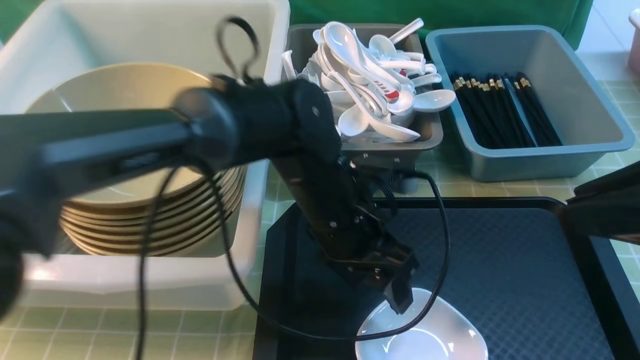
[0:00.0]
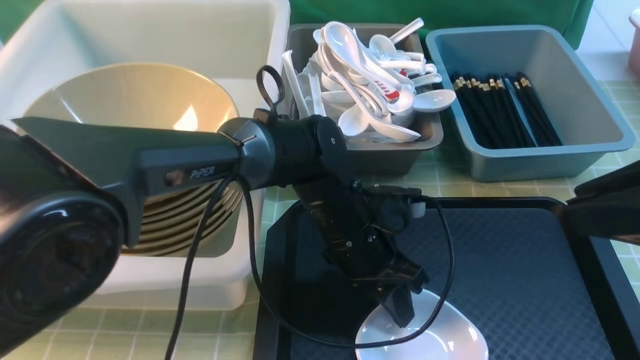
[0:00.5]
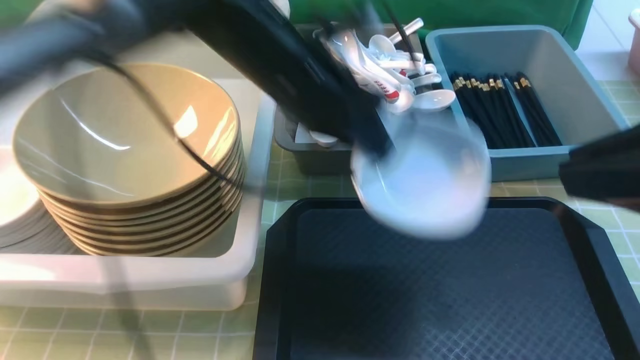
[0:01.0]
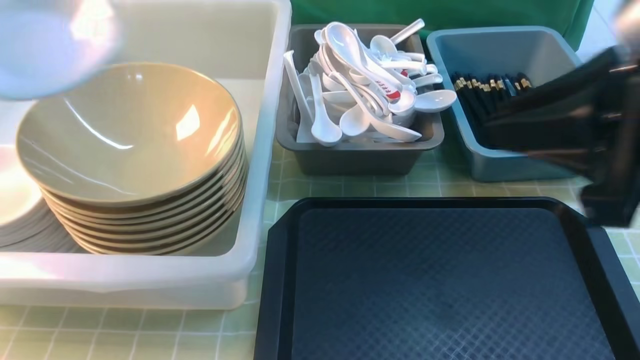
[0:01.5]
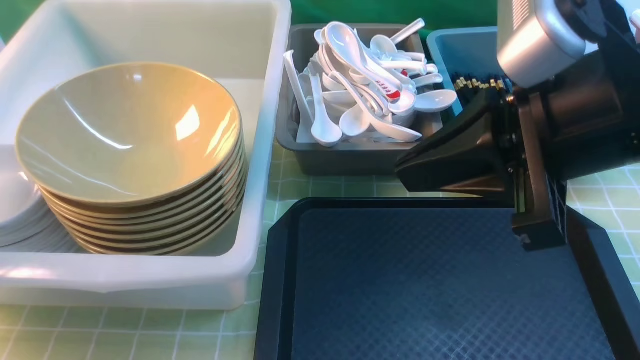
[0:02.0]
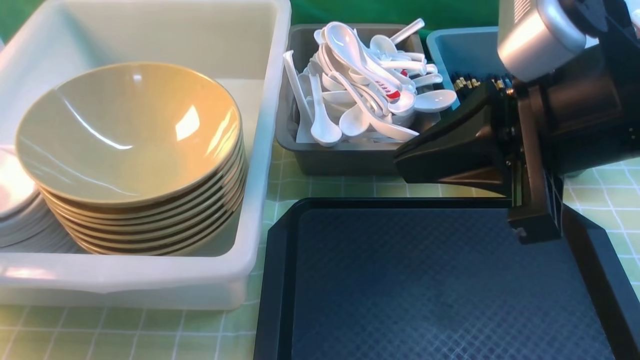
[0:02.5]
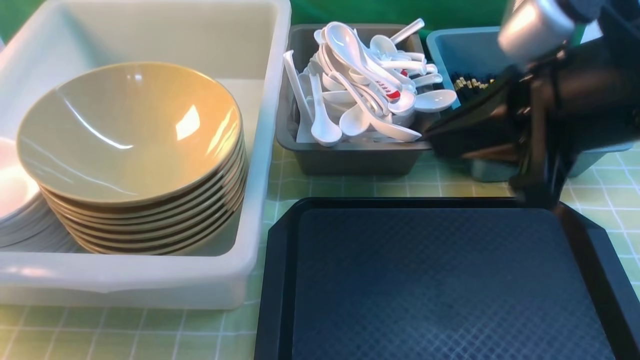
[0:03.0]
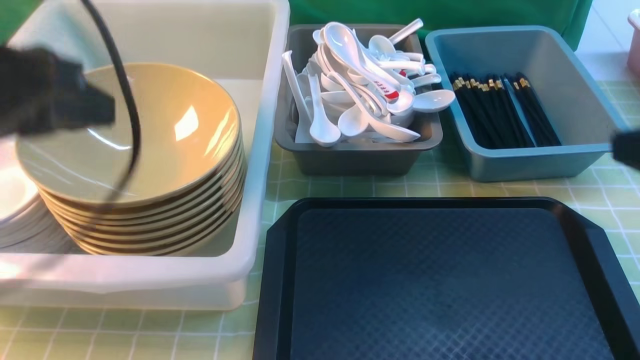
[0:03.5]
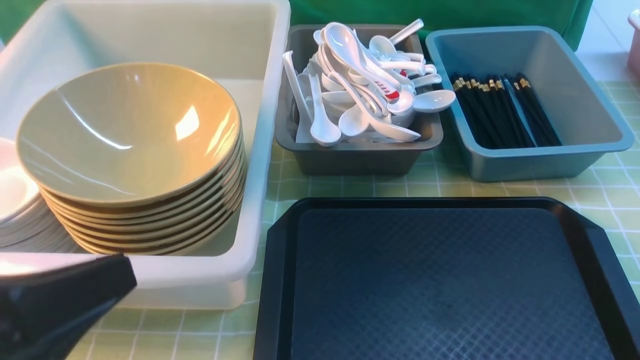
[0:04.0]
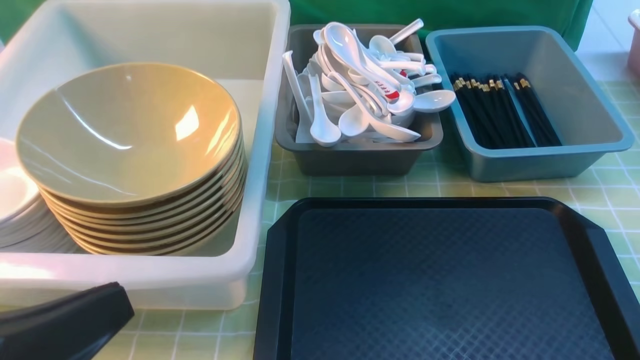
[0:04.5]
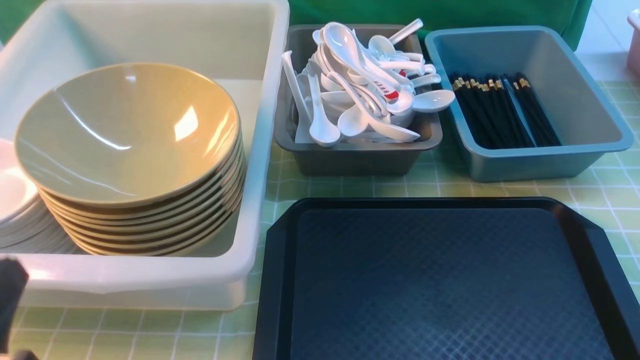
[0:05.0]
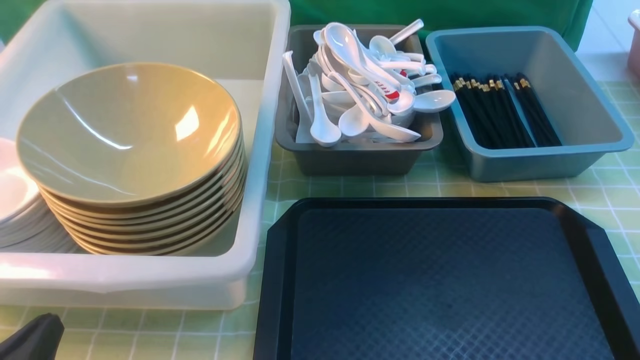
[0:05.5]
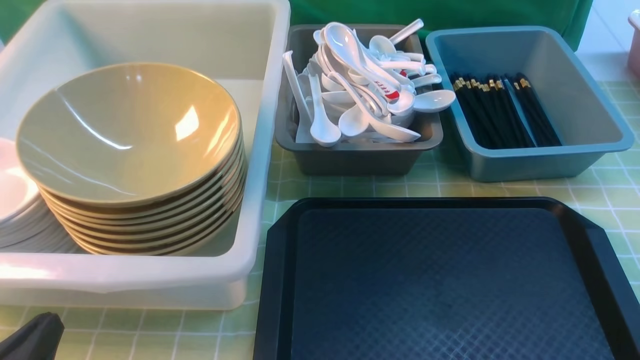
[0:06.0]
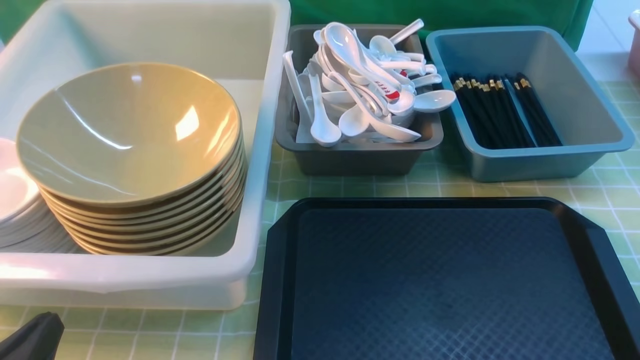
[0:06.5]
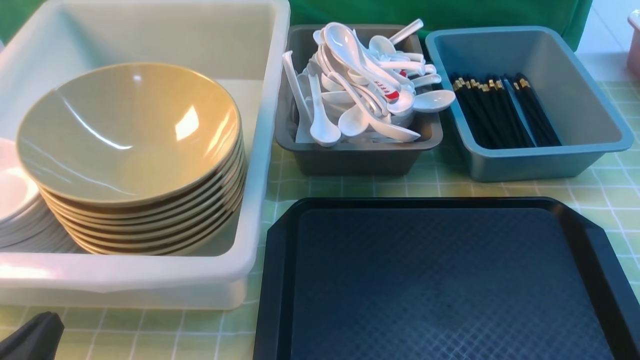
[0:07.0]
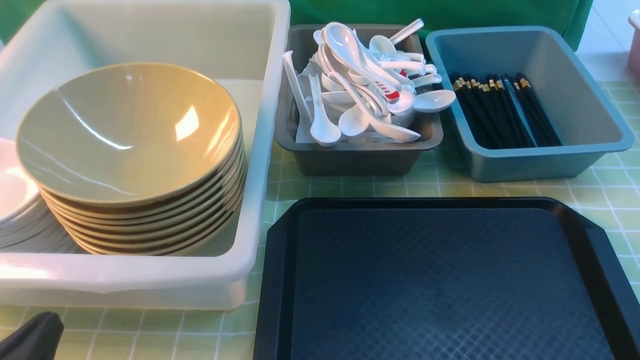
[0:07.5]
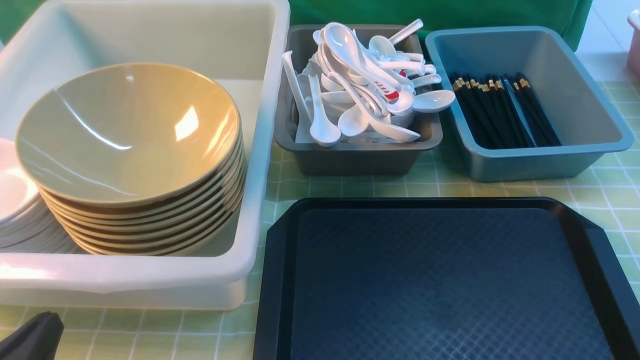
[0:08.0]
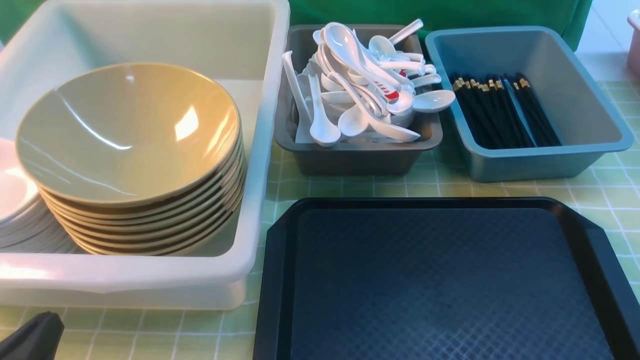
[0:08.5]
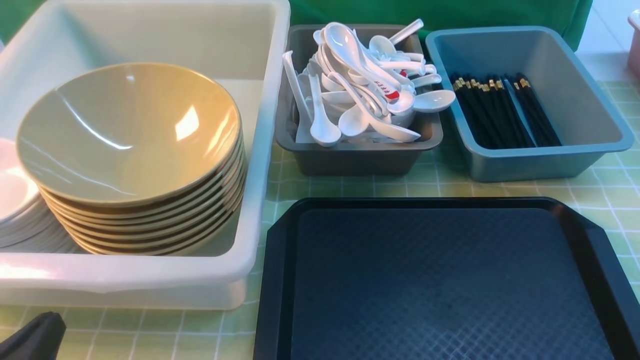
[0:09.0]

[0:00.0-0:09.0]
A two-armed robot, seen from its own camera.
Task of the whole recording: on green table put chopsticks spoon bowls plates into blue grey white boxes.
Step, 0:00.0 to 0:01.0: use the left arm to grab the plate.
Step, 0:01.5 to 0:03.0: use the left arm to put the plate into the large storage box on the left.
0:00.0 to 0:02.0: The left gripper heads to the left, covering about 40 cm, and closes. Meanwhile the right gripper travels forward and to the left by some 10 cm.
0:02.0 to 0:04.5: The right gripper is displaced to the right, backward and downward by approximately 25 cm. Meanwhile the left gripper shifts roughly 30 cm to the right and backward, and opens and closes again.
0:04.5 to 0:07.0: The left gripper travels downward by some 15 cm.
0:07.0 to 0:09.0: Both grippers stay put.

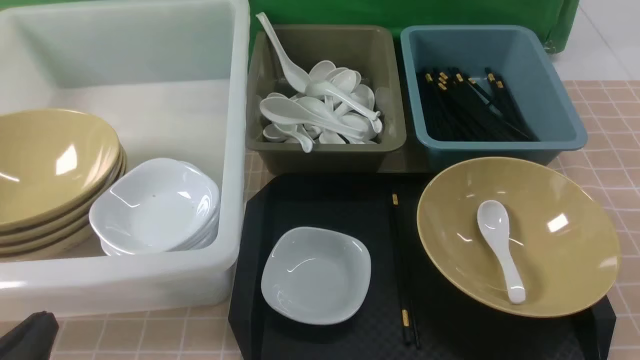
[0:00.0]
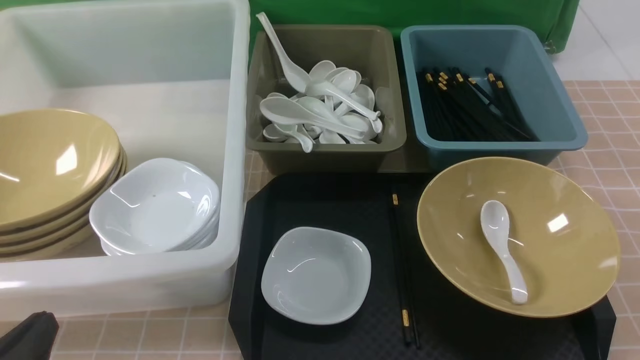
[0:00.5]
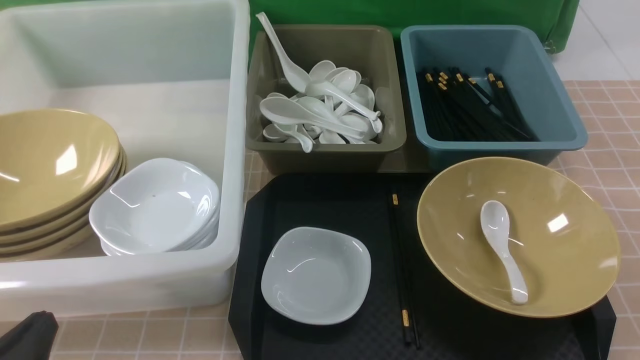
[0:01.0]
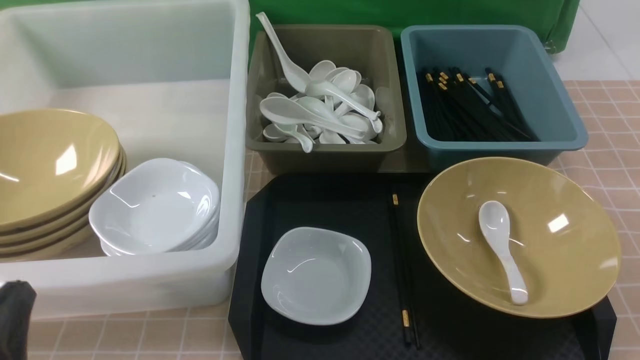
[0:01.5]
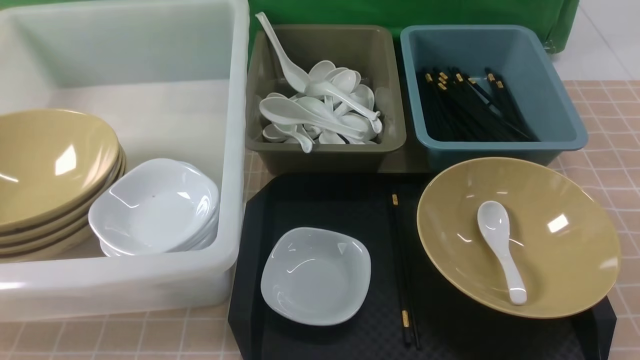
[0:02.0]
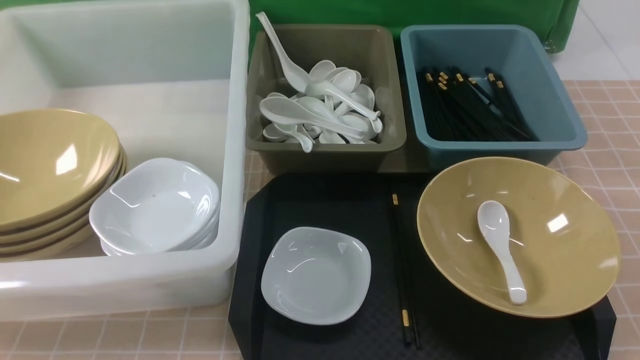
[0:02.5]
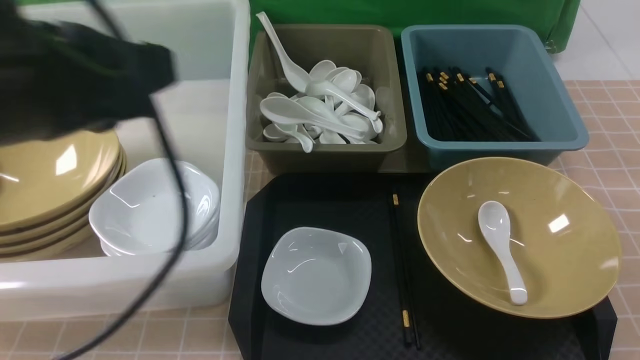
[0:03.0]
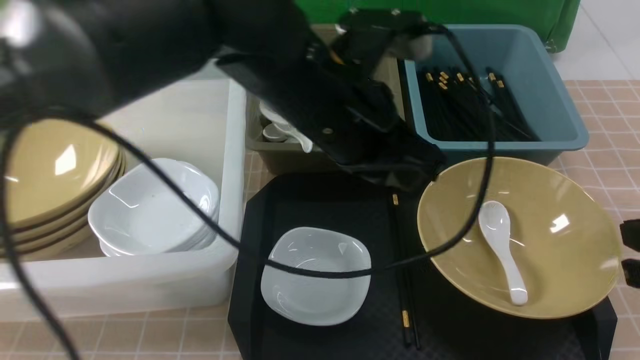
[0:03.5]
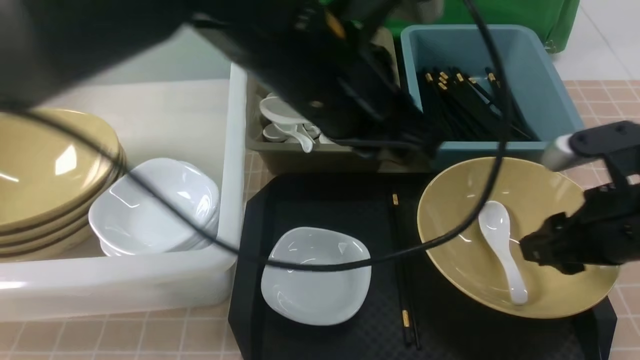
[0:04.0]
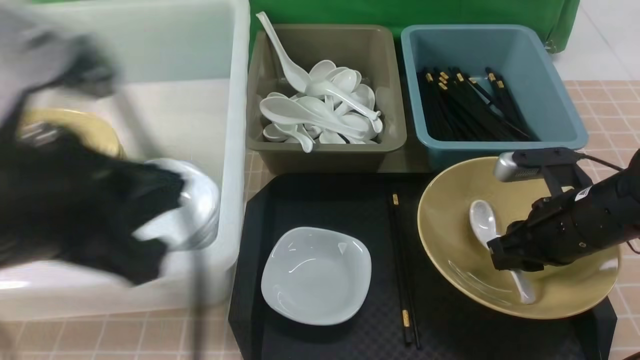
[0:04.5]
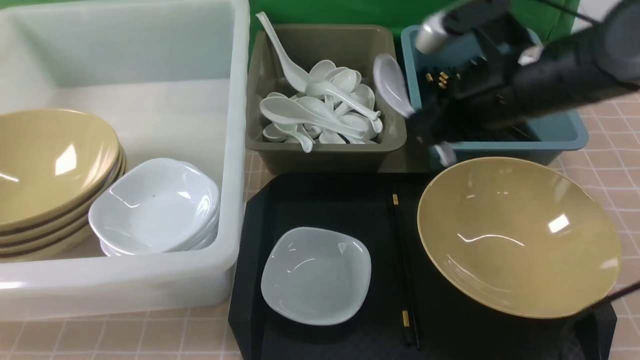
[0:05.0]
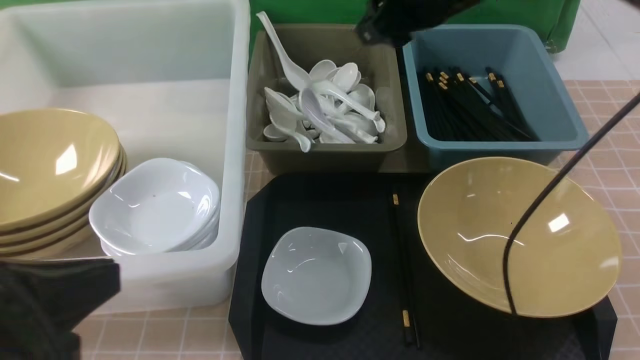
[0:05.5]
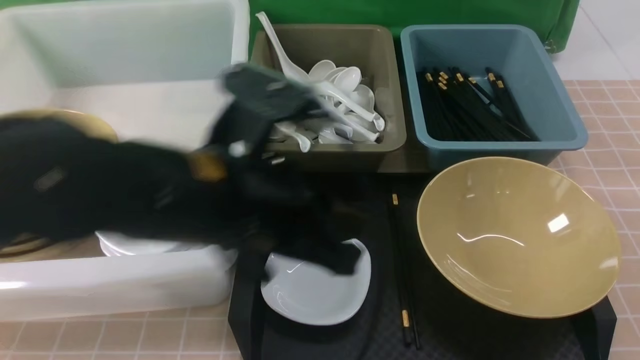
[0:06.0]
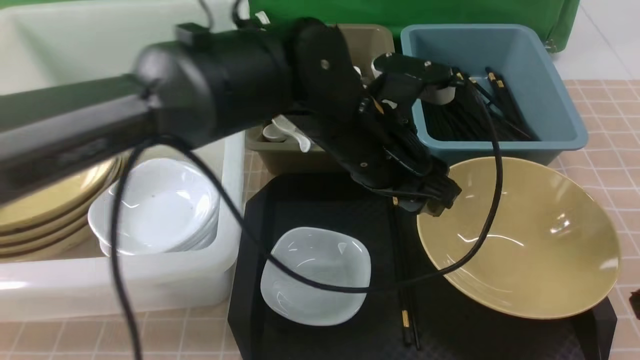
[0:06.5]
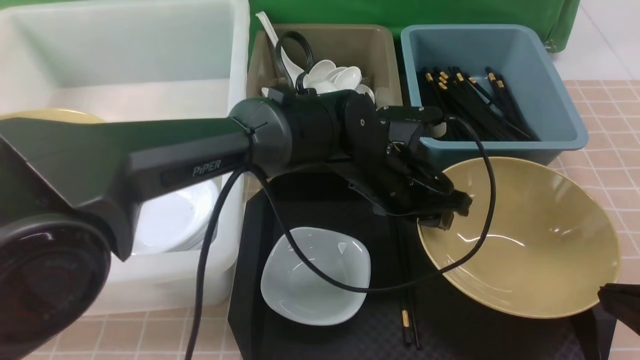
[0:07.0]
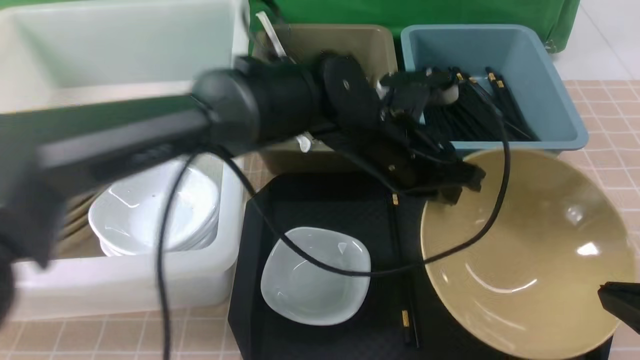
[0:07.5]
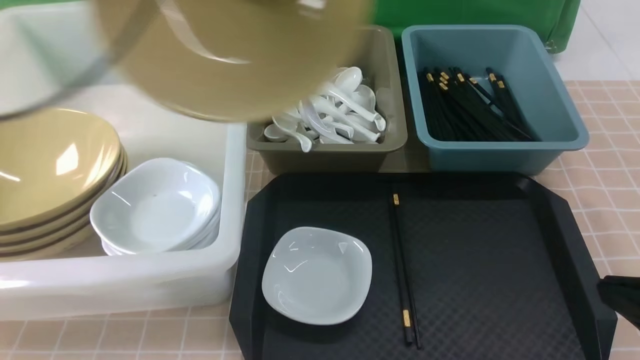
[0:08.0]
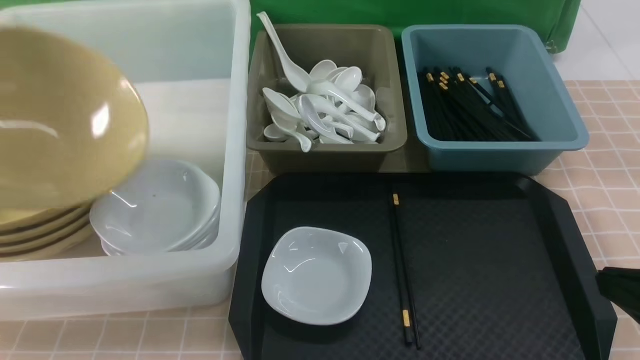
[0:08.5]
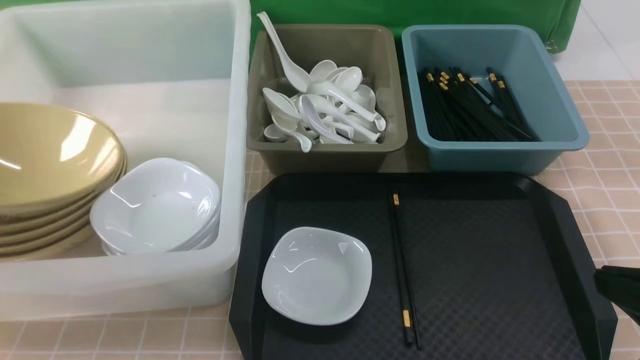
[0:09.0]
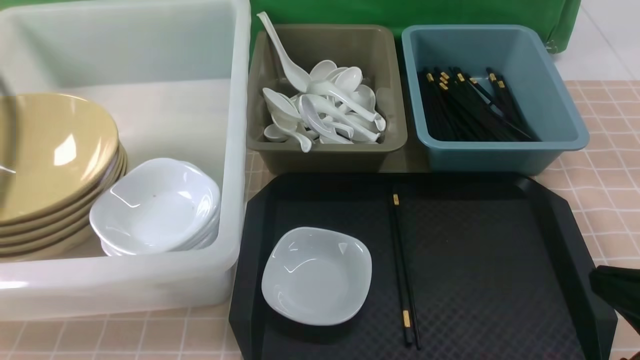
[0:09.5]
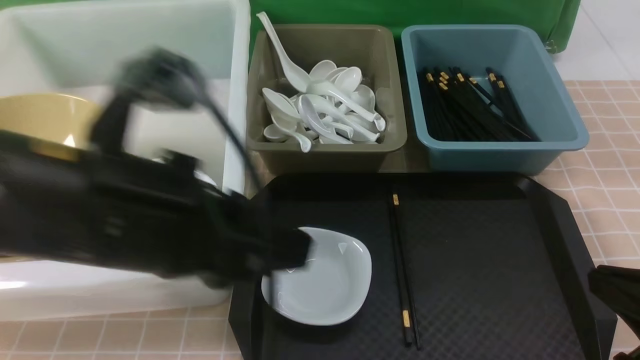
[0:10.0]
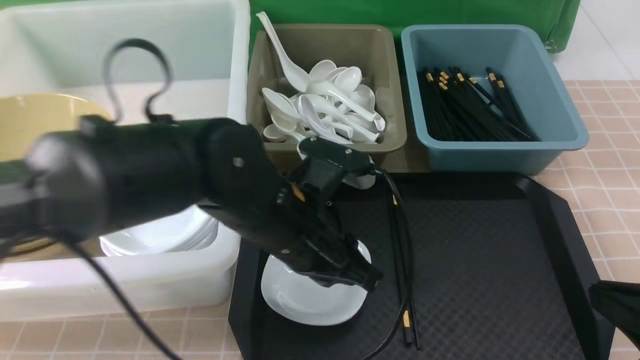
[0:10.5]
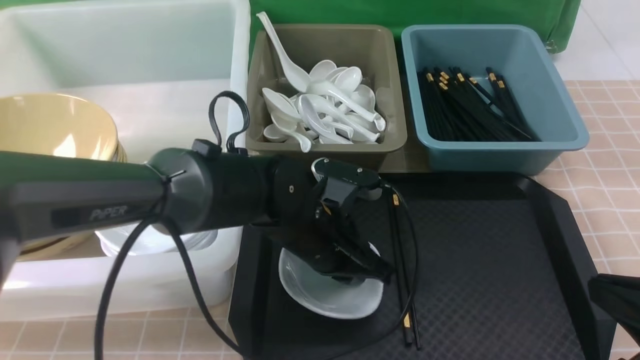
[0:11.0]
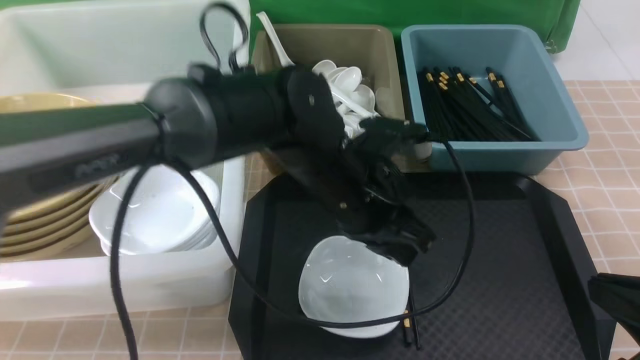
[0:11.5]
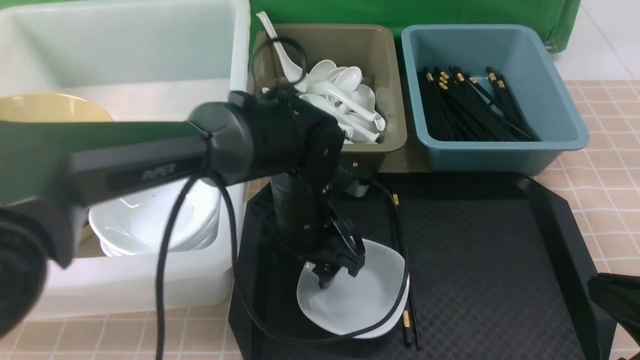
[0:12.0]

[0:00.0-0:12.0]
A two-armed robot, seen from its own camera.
Task of the whole recording: on brown table put chopsticks spoon bowls plates into blue grey white boxes.
Step, 0:00.0 to 0:04.5: use the right arm to grab the soup spoon in the middle.
Step, 0:06.0 to 0:07.0: use the left arm to grab the yellow noodle bowl on the left.
Step, 0:08.0 to 0:09.0: use the left arm to put the noodle bowl into the large storage box on the left.
0:00.0 to 0:02.0: The left gripper is displaced upward by some 10 cm.
0:02.0 to 0:04.0: The right gripper travels forward by roughly 20 cm, and opens. The left gripper is displaced to the right, forward and upward by approximately 30 cm.
0:04.0 to 0:06.0: The right gripper moves upward, approximately 20 cm, and closes up. Meanwhile the left gripper moves downward, roughly 5 cm, and moves approximately 25 cm to the left and comes back.
0:06.0 to 0:08.0: The left gripper is displaced to the left, upward and forward by about 25 cm, and opens, then closes once more; the right gripper travels downward by some 20 cm.
0:08.0 to 0:10.0: The left gripper moves to the right, downward and backward, about 20 cm, and opens and closes again.
0:10.0 to 0:12.0: The left gripper is displaced downward, forward and to the right by some 20 cm, and opens up.
